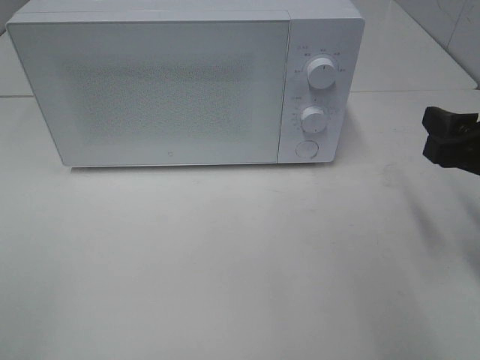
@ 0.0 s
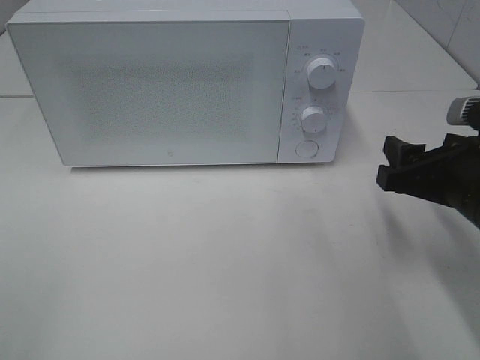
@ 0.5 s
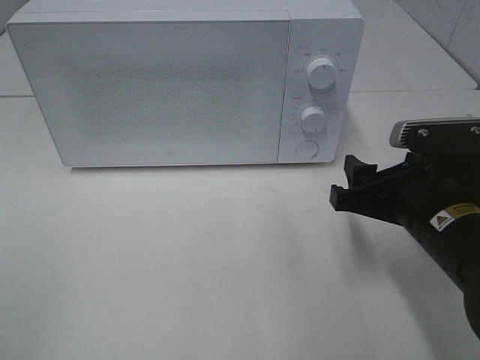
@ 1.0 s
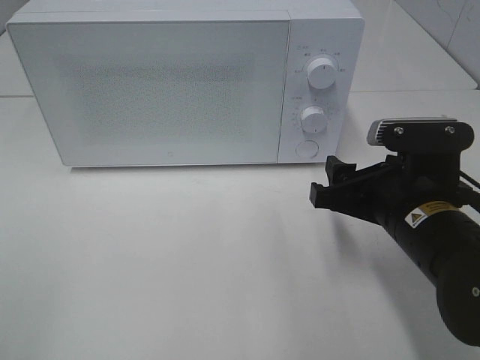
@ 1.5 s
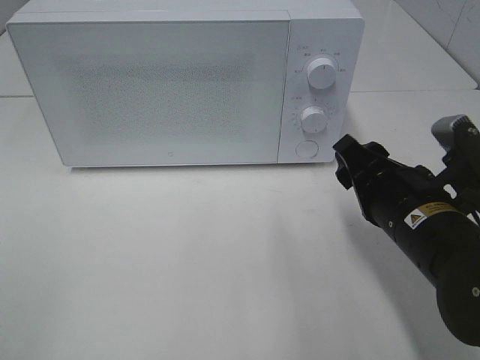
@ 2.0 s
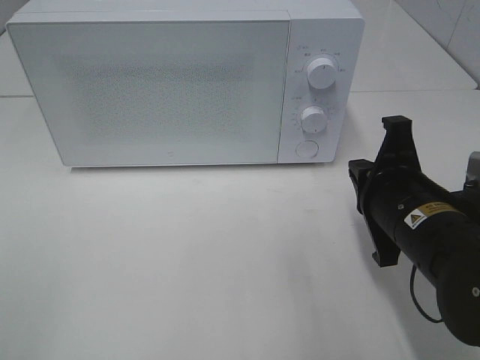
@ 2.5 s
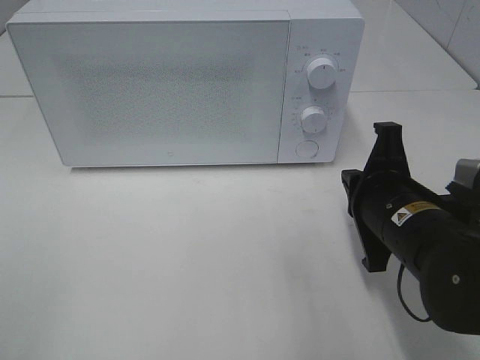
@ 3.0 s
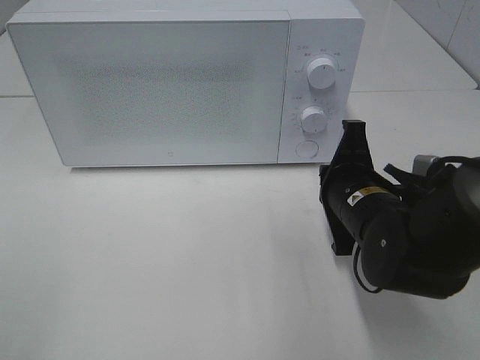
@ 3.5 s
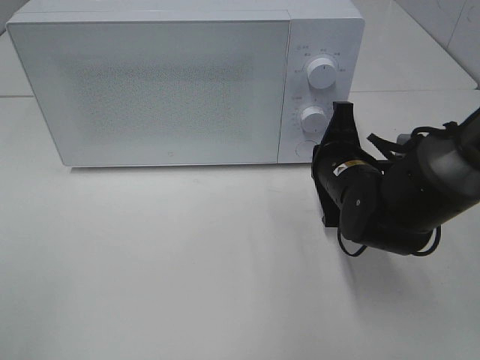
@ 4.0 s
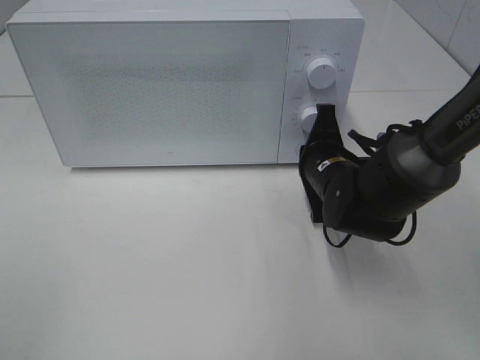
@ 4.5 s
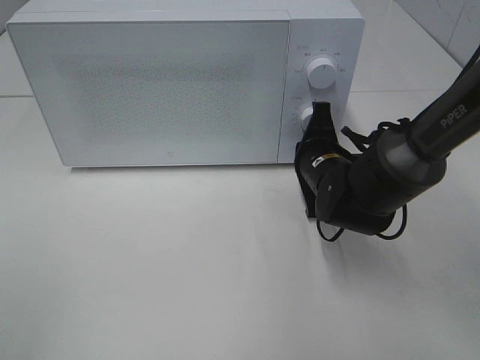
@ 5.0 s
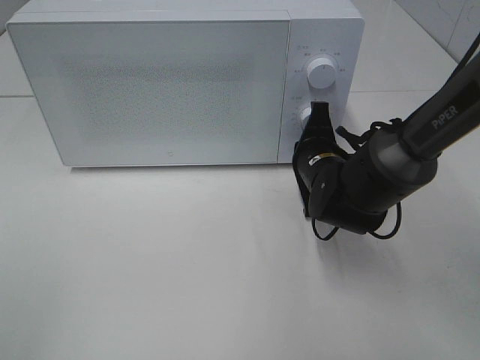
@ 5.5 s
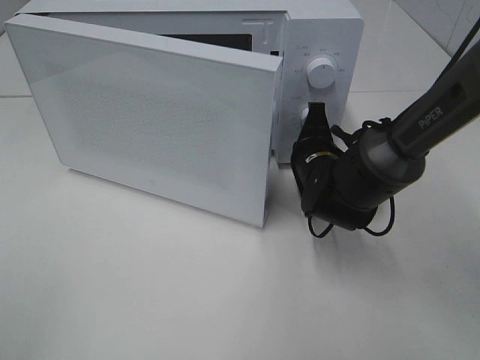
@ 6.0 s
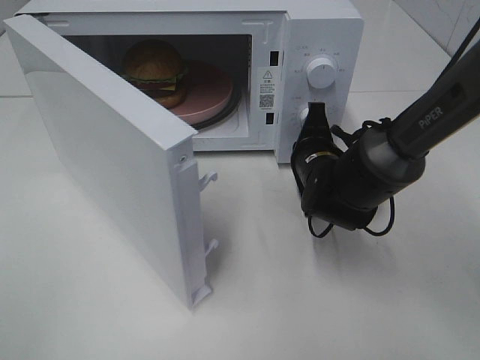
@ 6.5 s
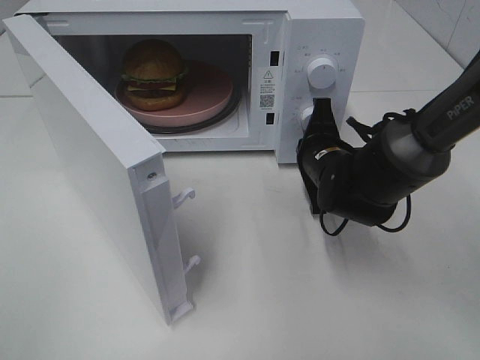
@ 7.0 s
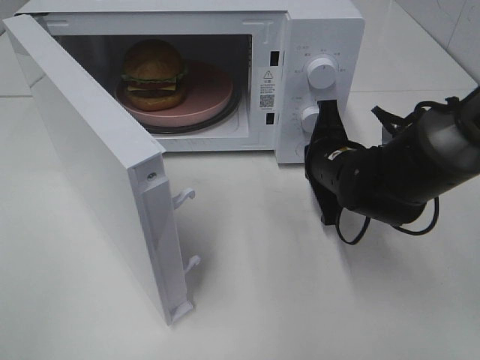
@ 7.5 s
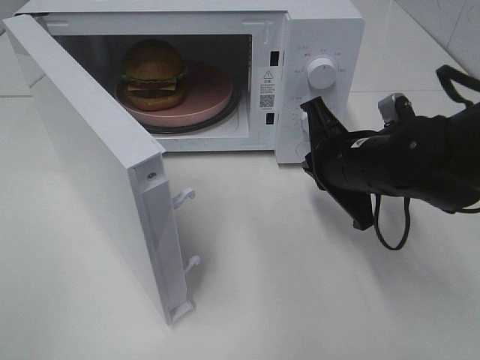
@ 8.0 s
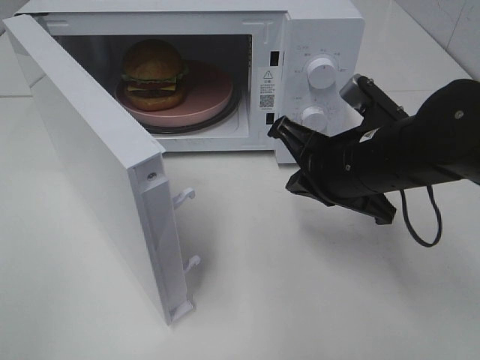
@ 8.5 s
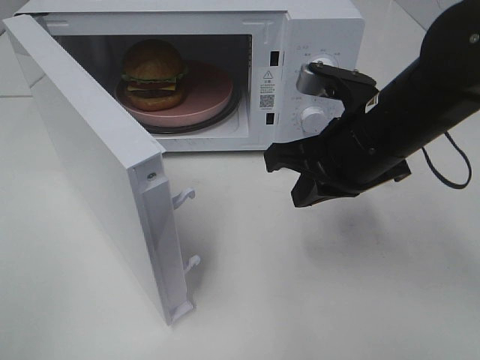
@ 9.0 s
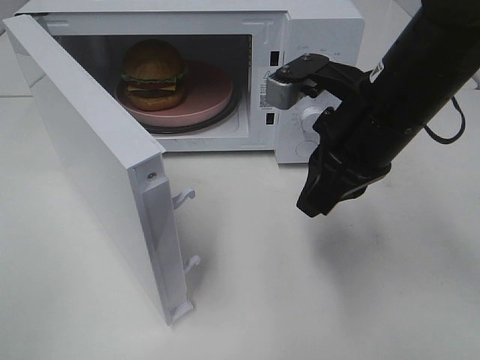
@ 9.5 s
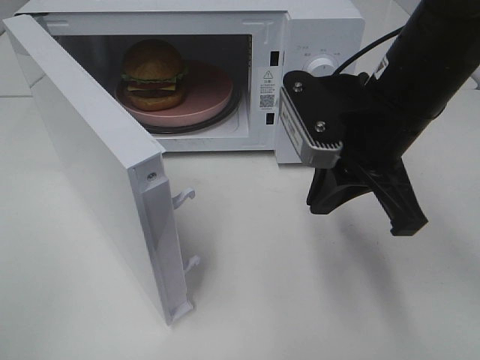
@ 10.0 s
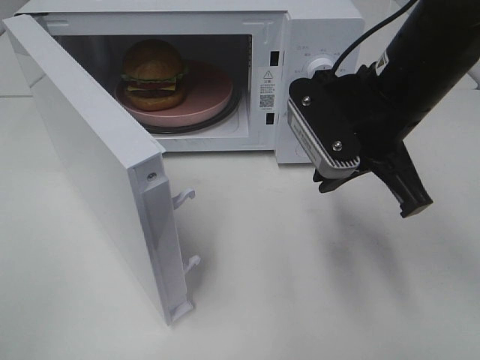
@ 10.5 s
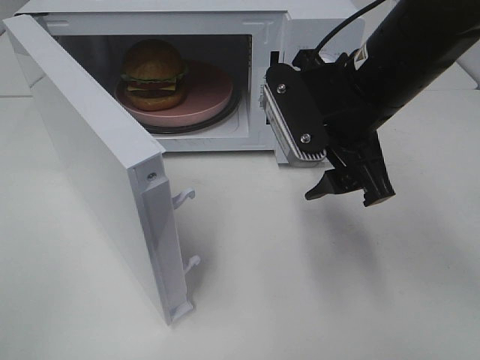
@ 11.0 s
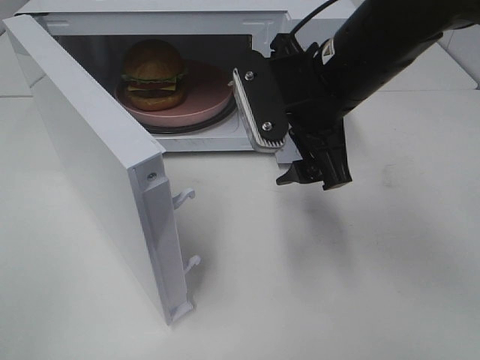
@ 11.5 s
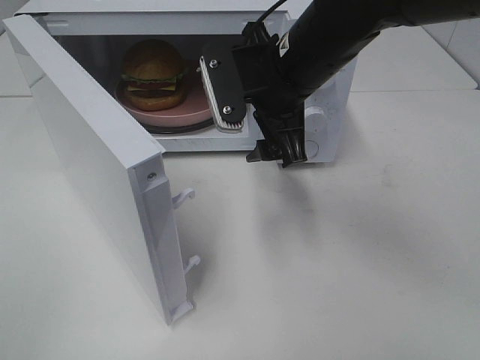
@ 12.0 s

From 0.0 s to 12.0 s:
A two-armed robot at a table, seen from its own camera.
Task of the whole recording: Heat the burger.
Step, from 0.0 s to 7.5 s: Right hand: press the switch.
From 0.0 s to 2.0 s: The right gripper goes some 10 cm to the left and downward.
From 2.0 s to 4.0 s: The right gripper shifts approximately 10 cm forward, and closes its fingers.
From 4.0 s to 6.0 s: The right gripper heads forward, covering roughly 5 cm.
From 6.0 s to 8.0 s: The right gripper moves backward and upward, some 10 cm.
From 8.0 s to 10.0 s: The right gripper travels upward by some 10 cm.
From 10.0 s to 12.0 s: The right gripper shifts about 10 cm forward and to the left, and opens its fingers.

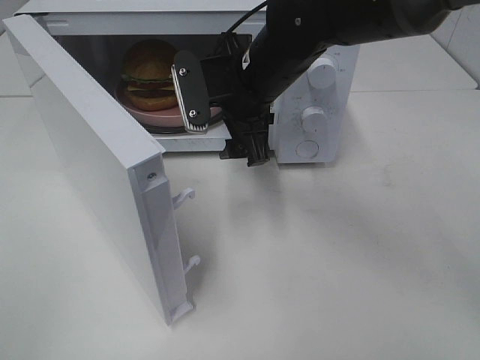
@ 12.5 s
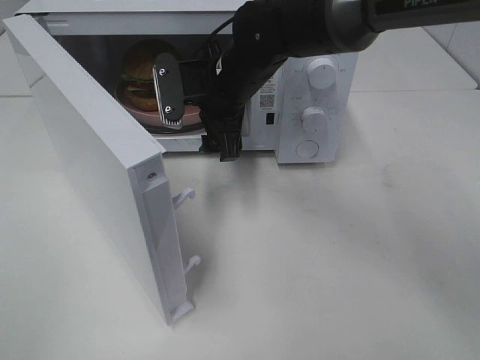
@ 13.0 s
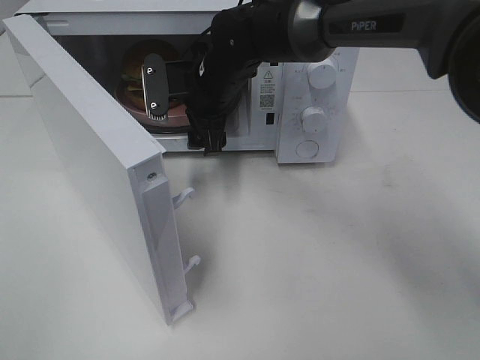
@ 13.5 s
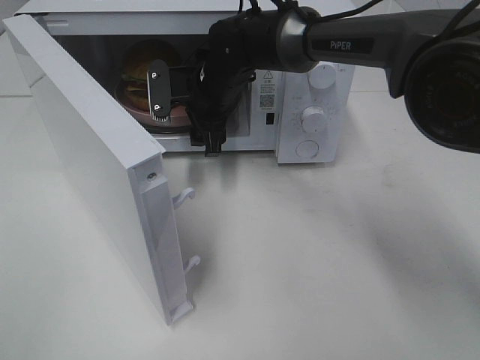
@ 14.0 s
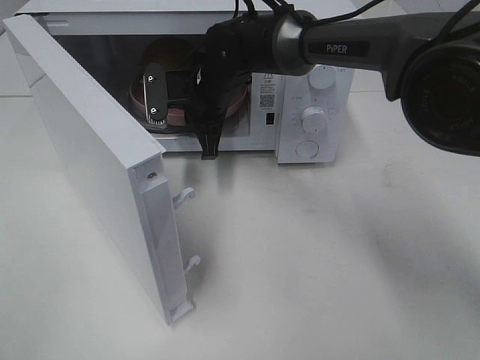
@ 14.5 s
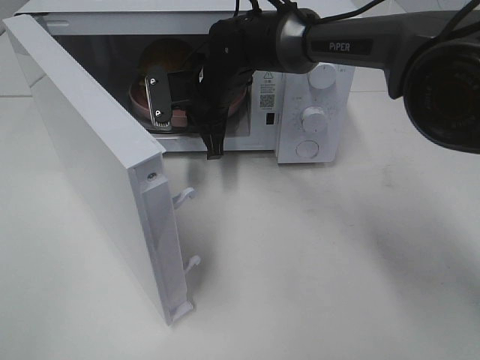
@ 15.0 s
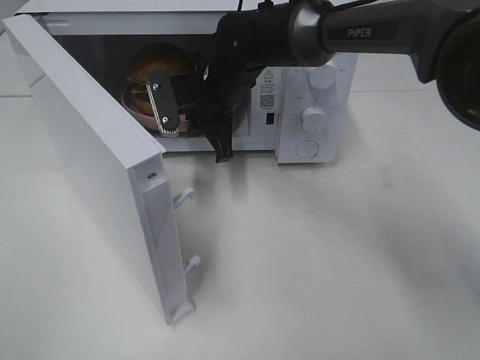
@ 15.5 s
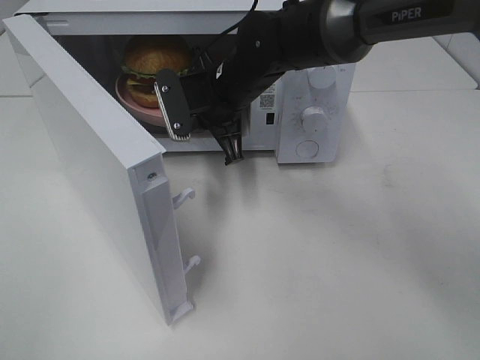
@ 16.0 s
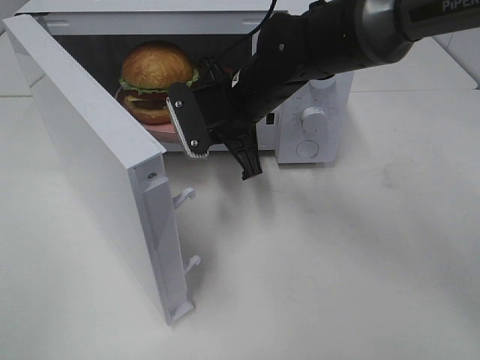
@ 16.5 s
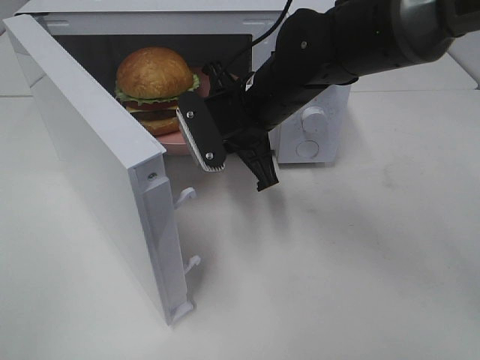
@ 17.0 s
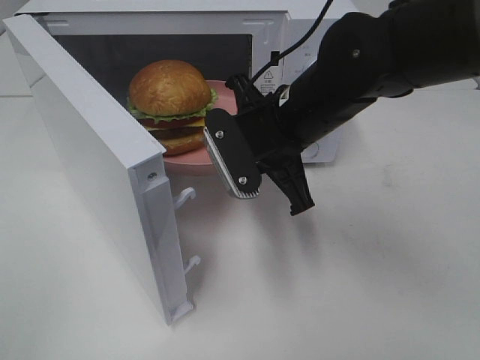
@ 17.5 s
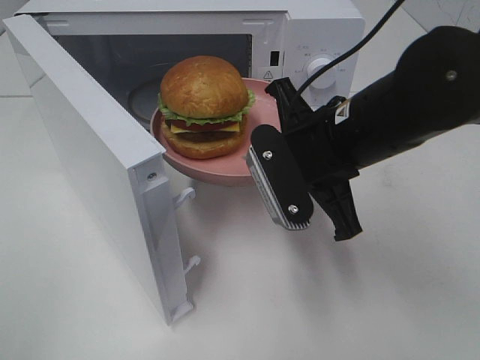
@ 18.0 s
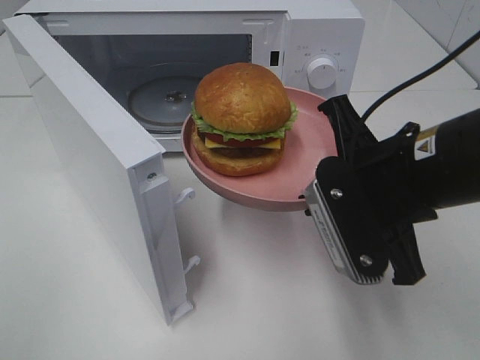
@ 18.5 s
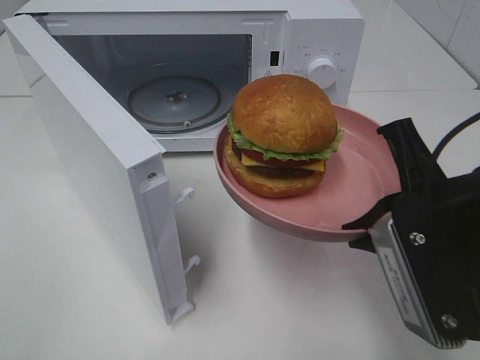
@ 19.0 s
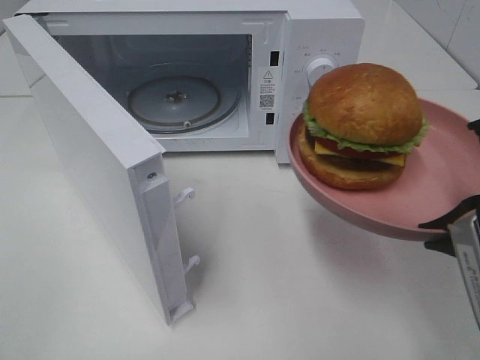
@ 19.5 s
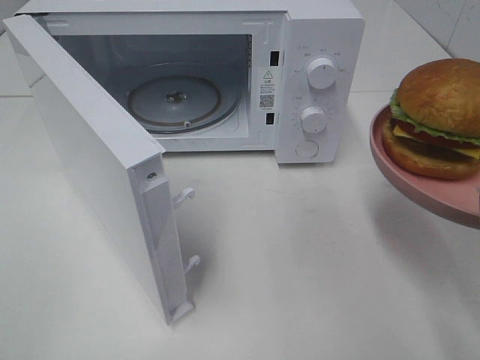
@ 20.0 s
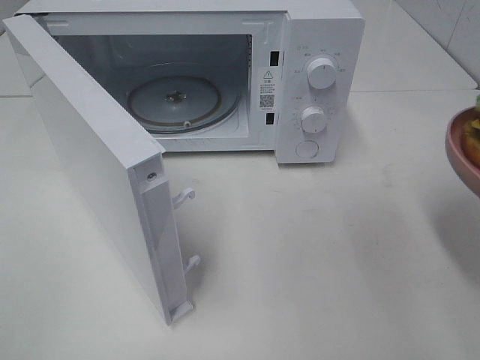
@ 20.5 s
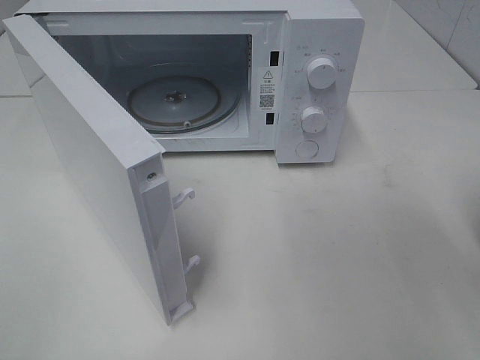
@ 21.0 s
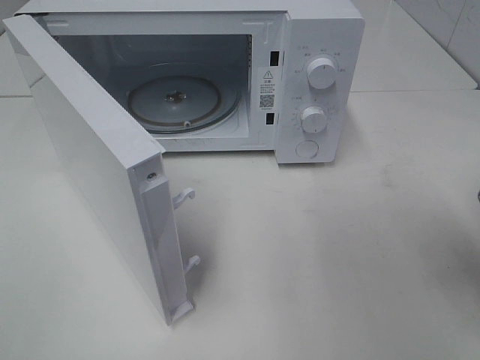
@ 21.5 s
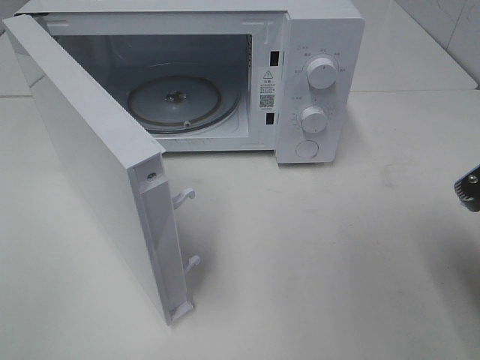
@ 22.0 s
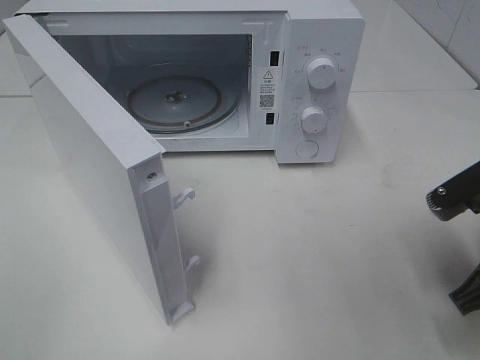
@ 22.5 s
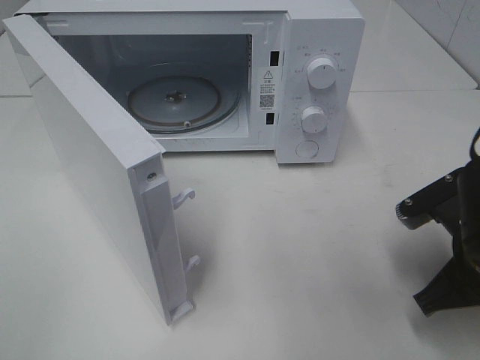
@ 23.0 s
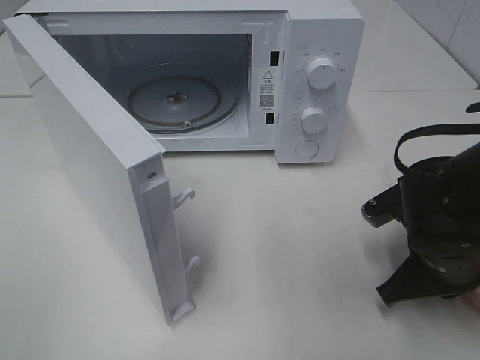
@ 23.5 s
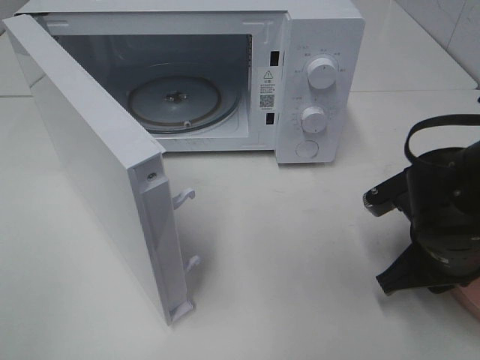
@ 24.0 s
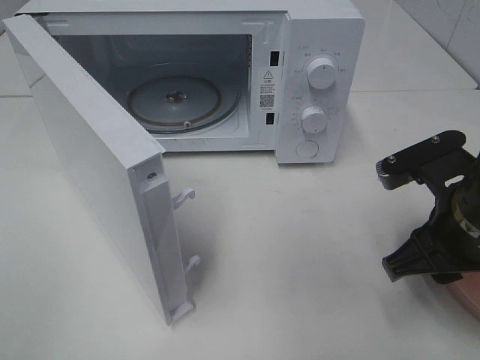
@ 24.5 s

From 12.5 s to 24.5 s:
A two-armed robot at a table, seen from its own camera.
Task of the whole recording: Heat the burger.
Step, from 12.5 s to 14.5 s: Right hand: grab the plate with the hamburger.
Step, from 15.0 s to 24.0 s: Right hand: place the plate on the table.
From 12.5 s to 14.5 s: The right gripper is displaced forward and downward by about 10 cm, and closes up.
From 14.5 s to 16.5 s: The right gripper moves backward, roughly 10 cm.
From 16.5 s to 18.5 s: The right gripper is displaced backward and to the right by about 20 cm.
From 18.5 s to 20.5 s: The right gripper is displaced to the right and backward by approximately 15 cm.
From 20.5 s to 22.5 s: The right gripper heads downward, covering some 10 cm.
From 22.5 s to 24.5 s: The right gripper opens its fingers.

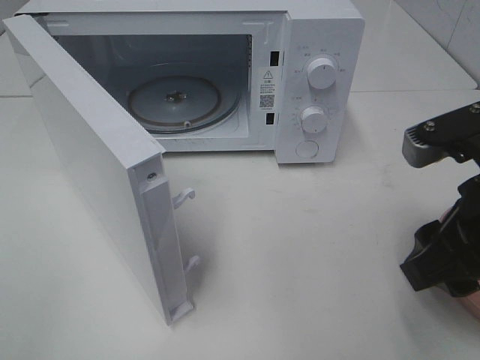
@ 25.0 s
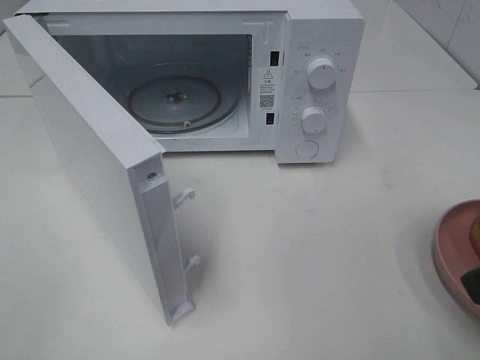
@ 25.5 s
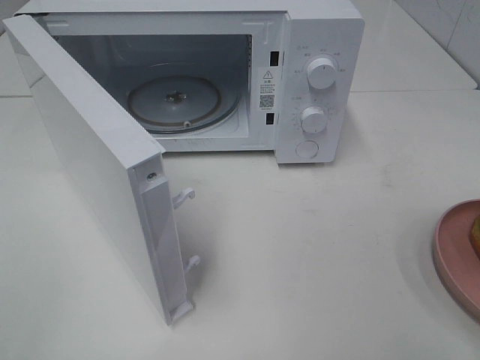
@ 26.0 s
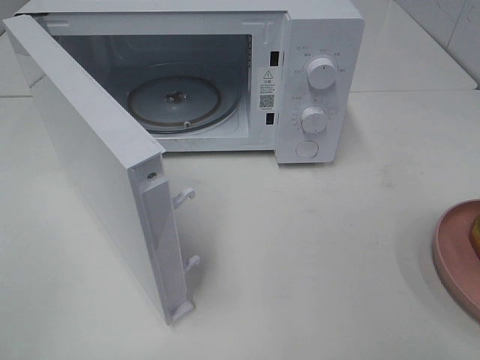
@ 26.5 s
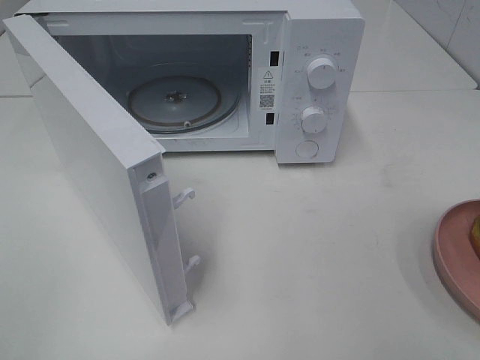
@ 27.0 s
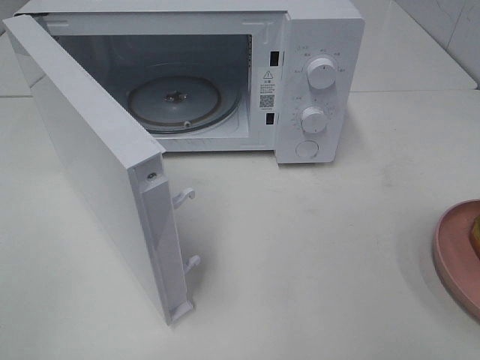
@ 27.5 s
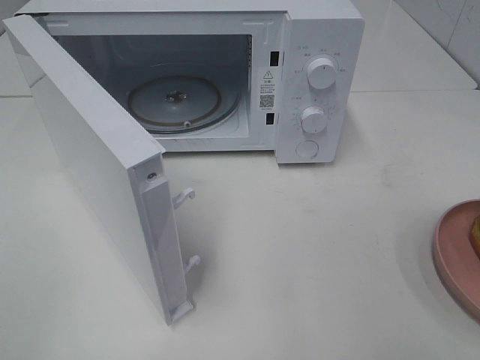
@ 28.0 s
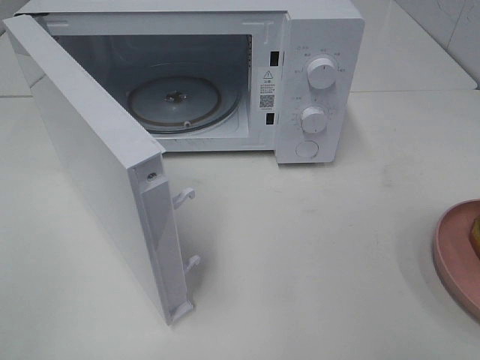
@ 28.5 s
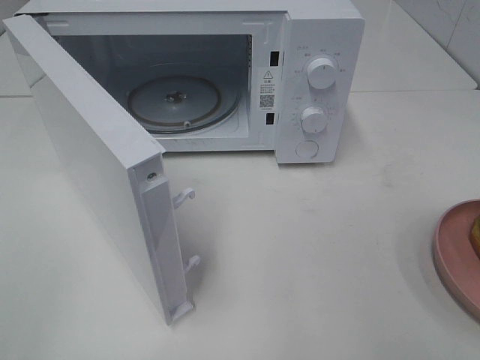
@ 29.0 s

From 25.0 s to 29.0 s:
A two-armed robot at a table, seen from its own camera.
Task of the whole recording: Heat the burger.
From 25.0 s to 27.0 s: The right gripper travels backward and to the right by some 20 cm.
From 27.0 s to 29.0 s: Both grippers stay put.
